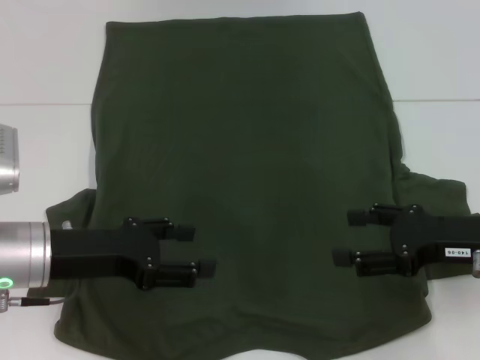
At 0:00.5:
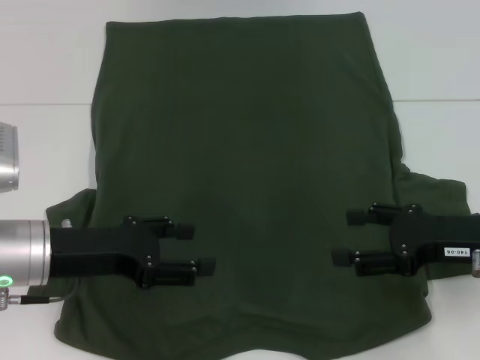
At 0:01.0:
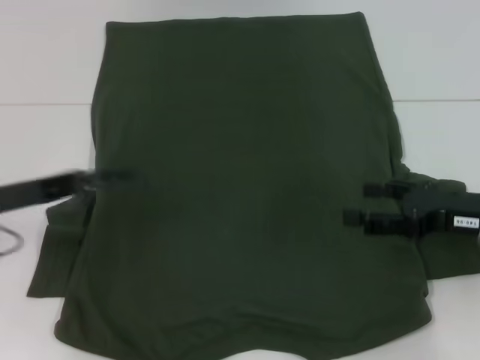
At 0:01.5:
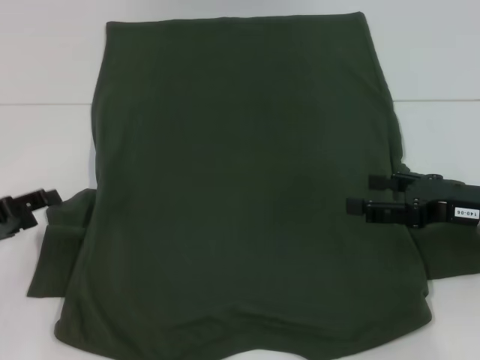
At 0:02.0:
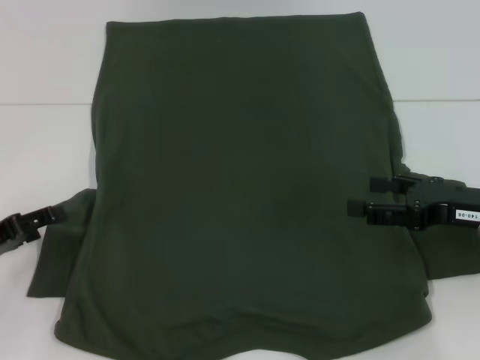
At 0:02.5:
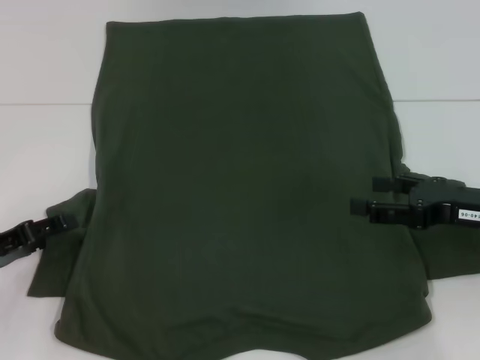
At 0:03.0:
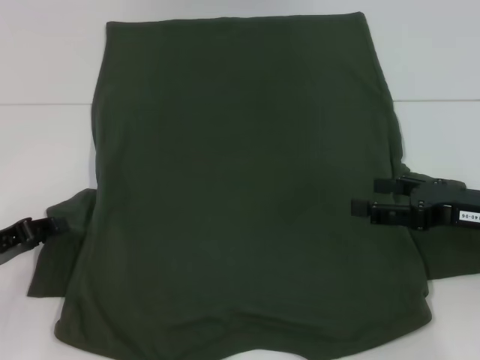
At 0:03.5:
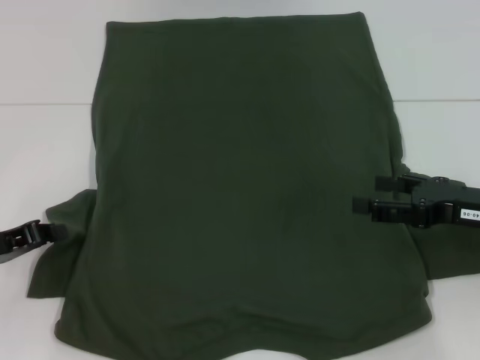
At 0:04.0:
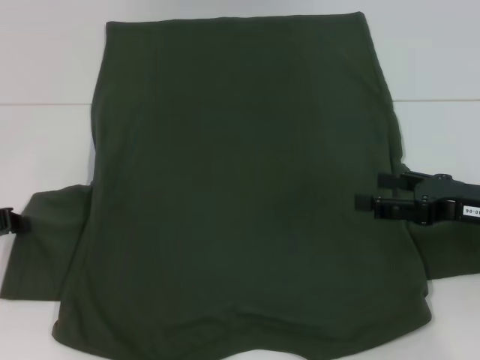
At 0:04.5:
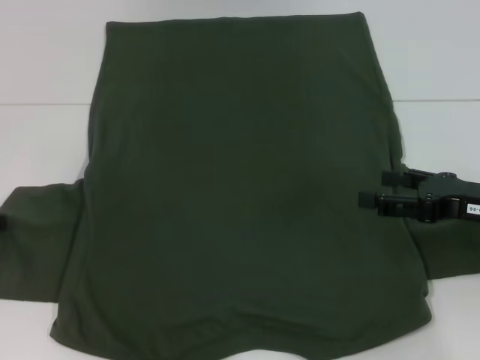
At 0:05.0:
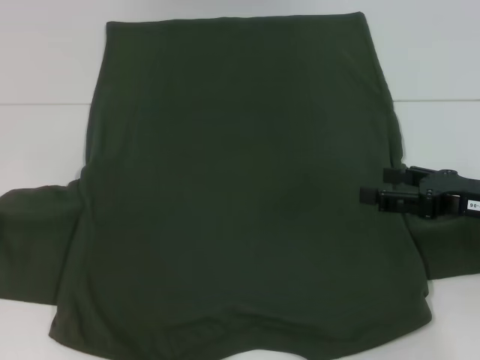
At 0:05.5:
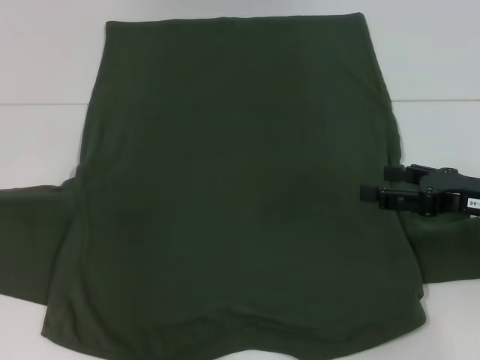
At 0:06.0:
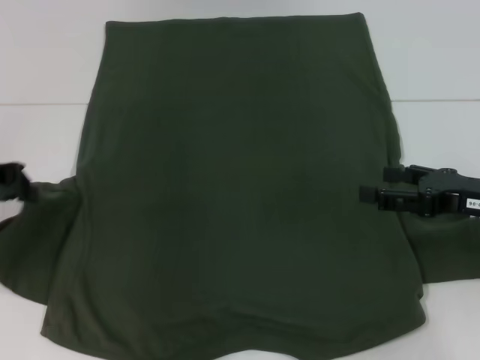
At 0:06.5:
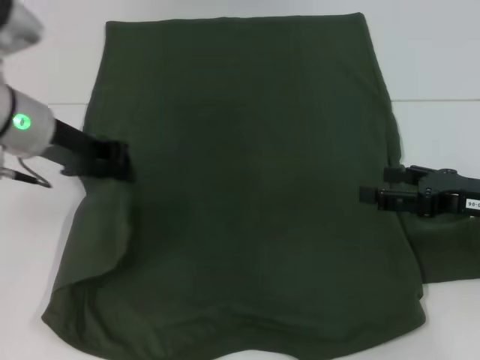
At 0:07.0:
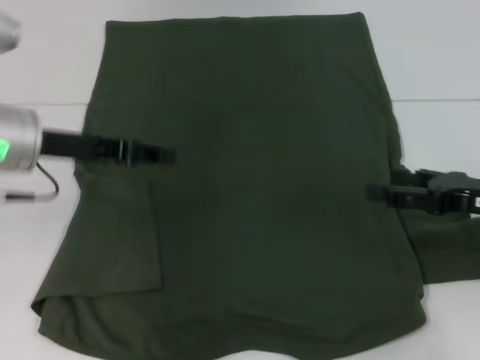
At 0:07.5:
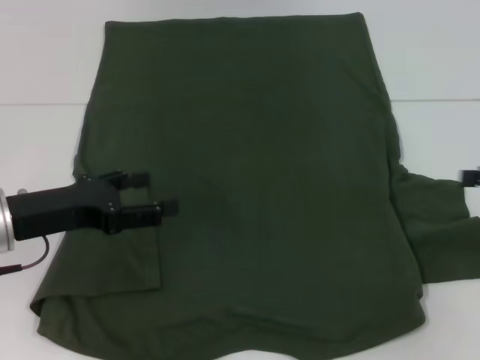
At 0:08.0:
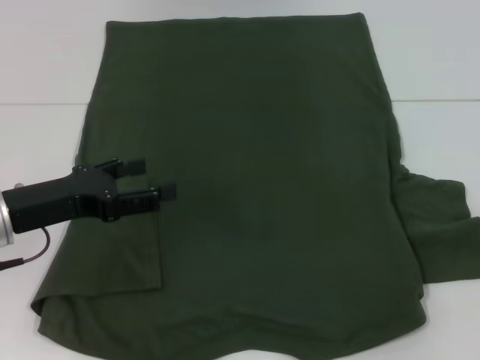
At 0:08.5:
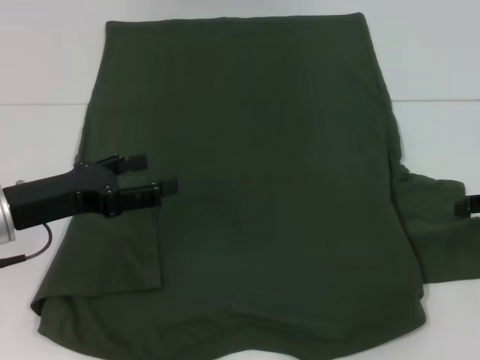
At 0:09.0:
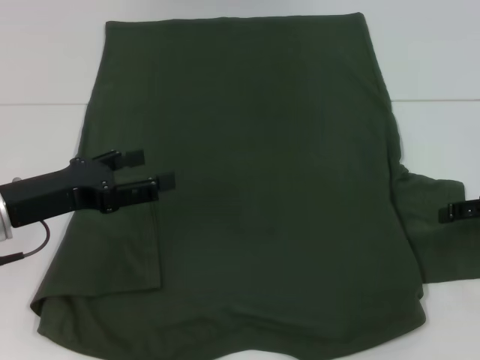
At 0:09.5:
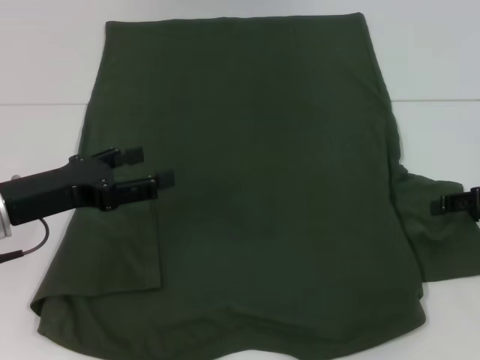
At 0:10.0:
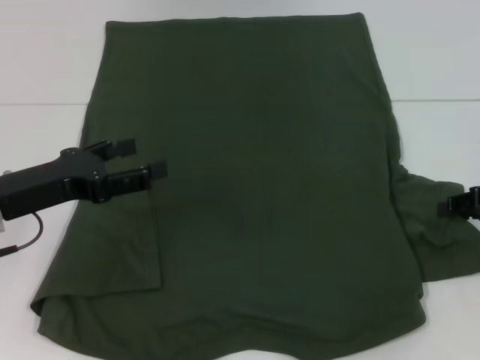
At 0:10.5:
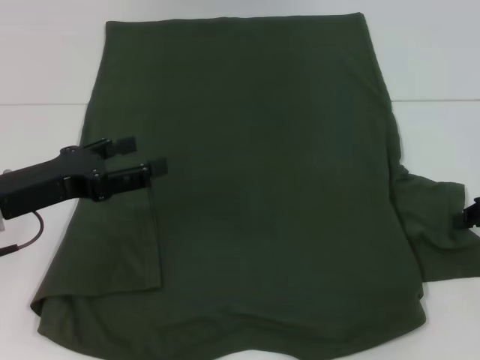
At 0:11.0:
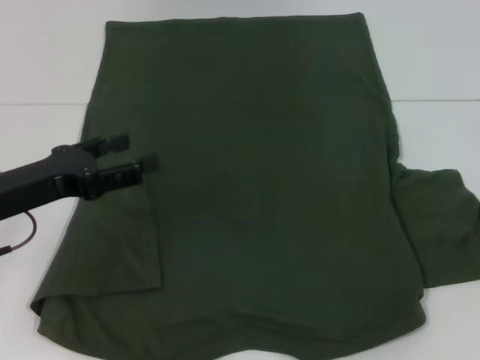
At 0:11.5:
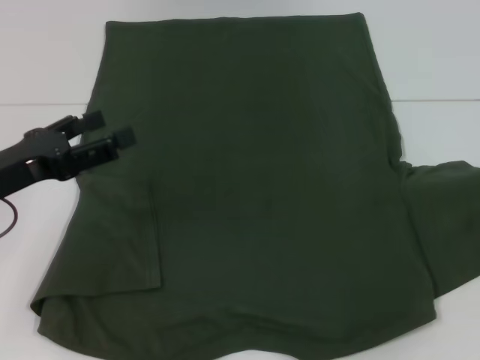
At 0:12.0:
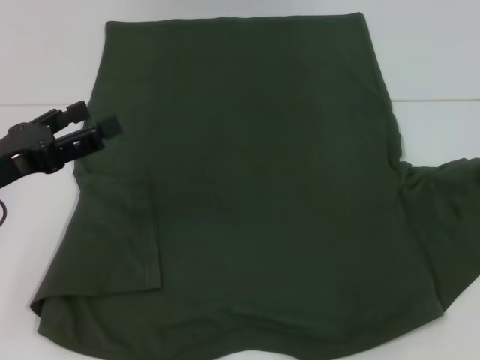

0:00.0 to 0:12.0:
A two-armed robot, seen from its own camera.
Step, 0:00.0 to 0:07.5: Fold the bottom left sleeve with your left hand.
0:00.0 to 0:02.0: The left gripper heads to the left, covering some 10 cm.
0:02.0 to 0:04.0: The left gripper closes its fingers.
0:04.0 to 0:06.0: The left gripper is displaced upward by some 10 cm.
0:06.0 to 0:08.0: The right gripper goes approximately 10 cm to the right. The left gripper travels downward, to the right and backward by roughly 10 cm, and opens up.
0:08.0 to 0:10.0: The right gripper shifts by about 5 cm, and closes up.
0:10.0 to 0:12.0: The right gripper closes.

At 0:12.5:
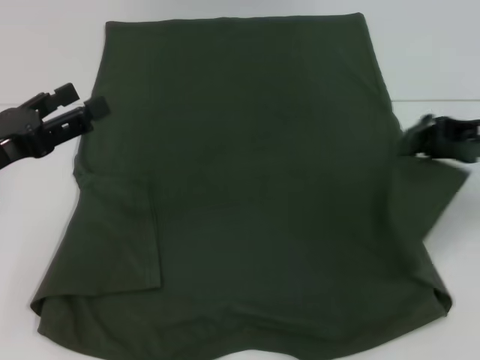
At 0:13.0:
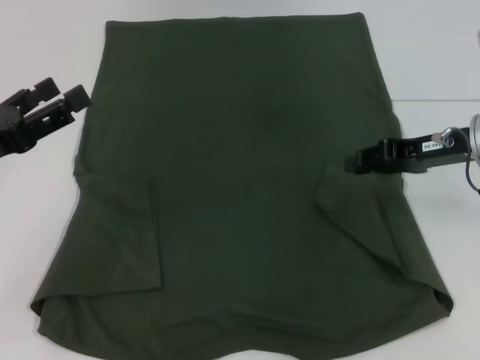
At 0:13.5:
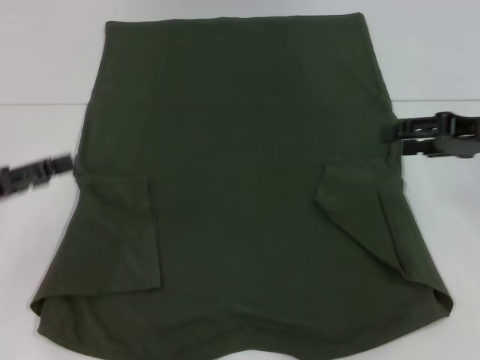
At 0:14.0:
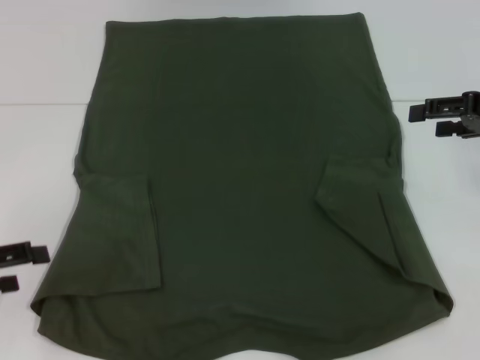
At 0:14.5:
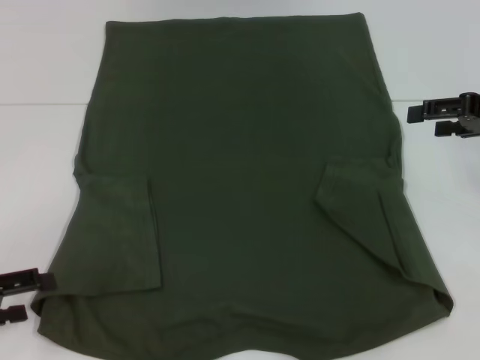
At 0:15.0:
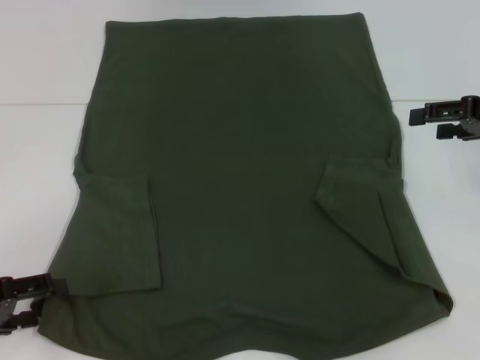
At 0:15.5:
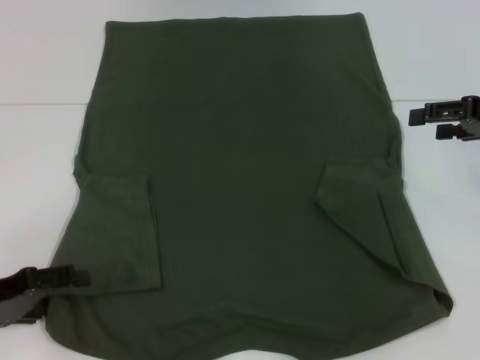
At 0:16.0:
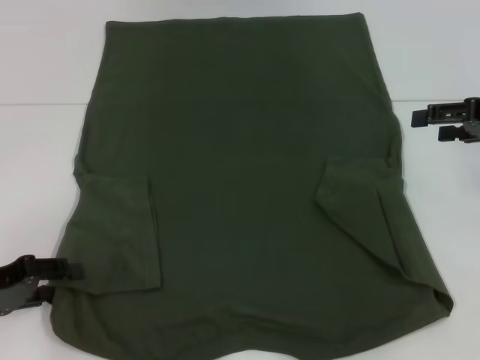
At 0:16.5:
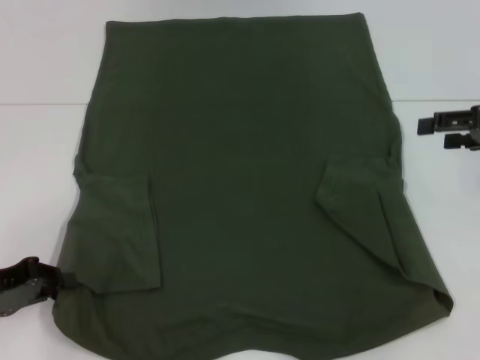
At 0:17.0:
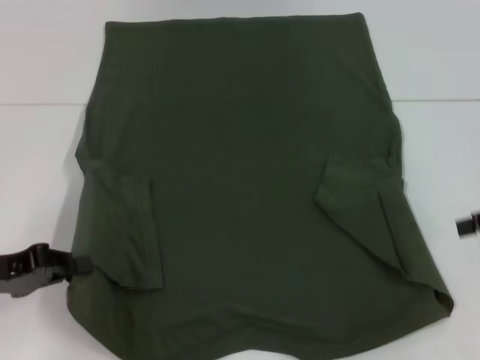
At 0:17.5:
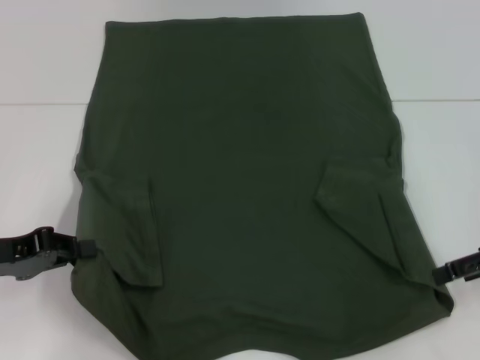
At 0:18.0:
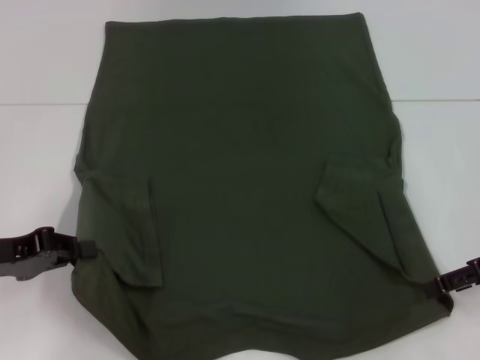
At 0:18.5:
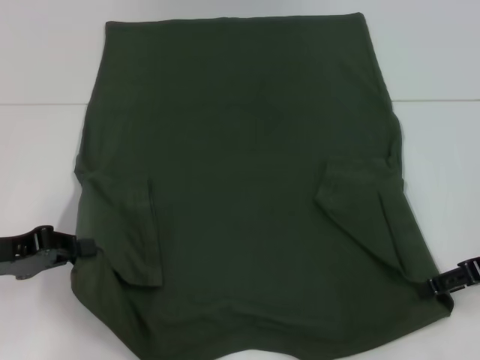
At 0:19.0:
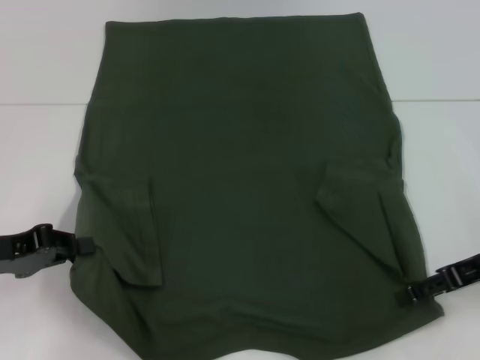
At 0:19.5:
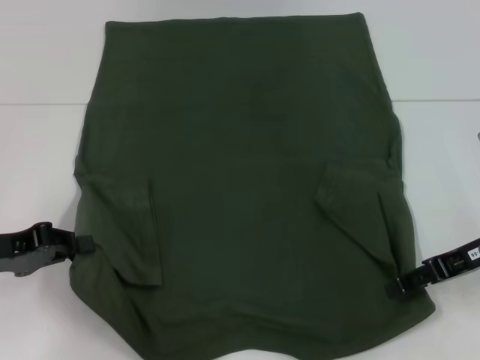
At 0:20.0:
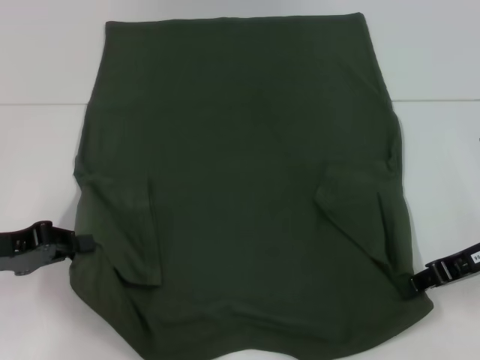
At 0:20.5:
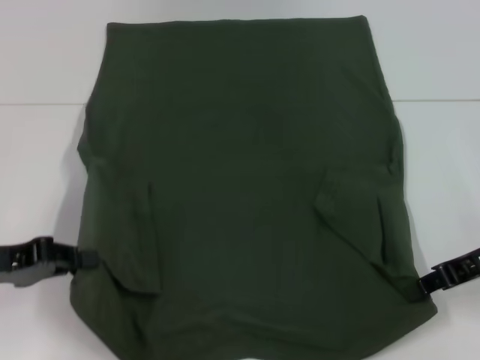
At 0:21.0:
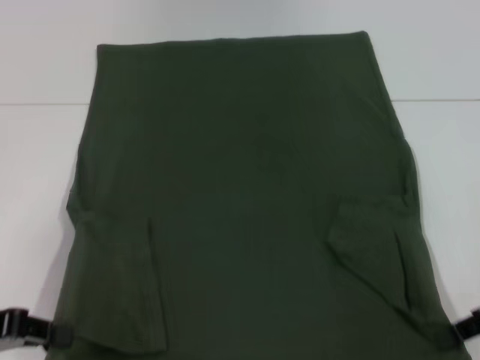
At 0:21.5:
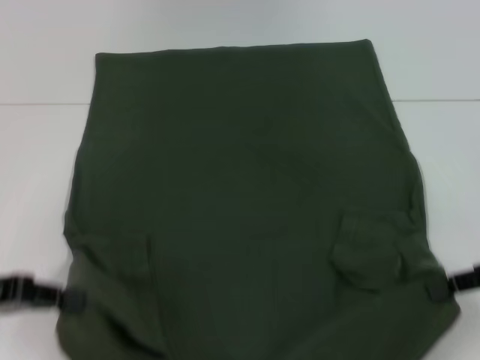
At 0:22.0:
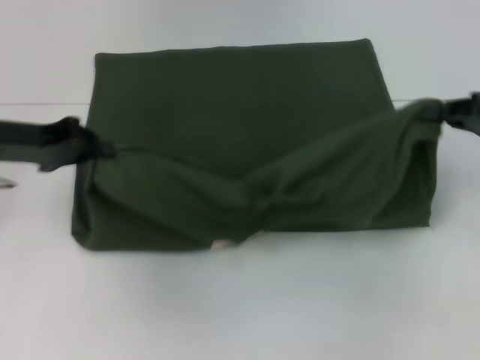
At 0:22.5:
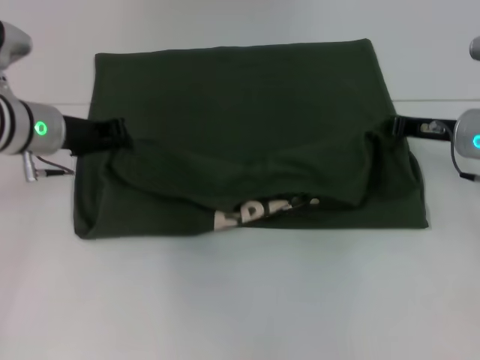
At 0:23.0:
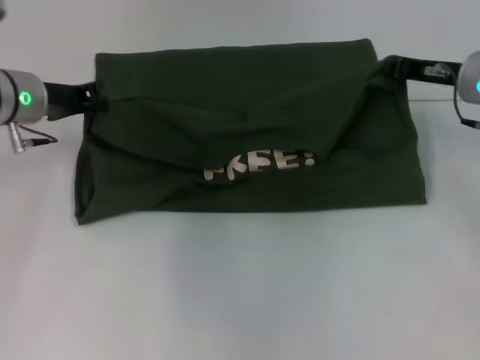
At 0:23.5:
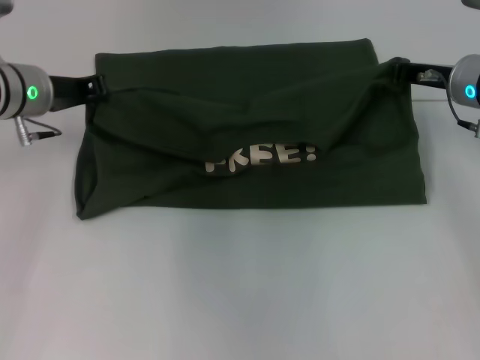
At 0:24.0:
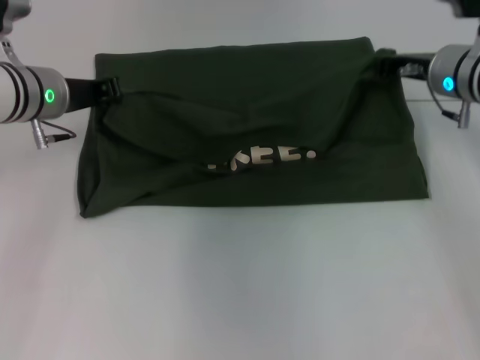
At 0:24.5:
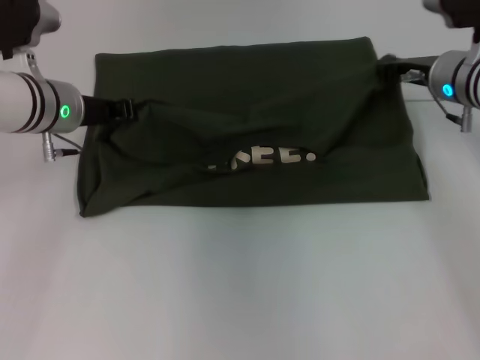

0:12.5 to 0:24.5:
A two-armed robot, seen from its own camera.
Step, 0:14.0 to 0:16.5: Grab the bottom left corner with your left hand.
Step, 0:17.0 to 0:20.5: Grab the bottom right corner with your right hand.
0:12.5 to 0:14.5: The left gripper heads to the left and backward, covering approximately 10 cm, while the right gripper opens its fingers.
0:14.5 to 0:16.5: The left gripper closes.
0:16.5 to 0:18.5: The right gripper travels downward and backward by approximately 10 cm.
0:18.5 to 0:20.5: The right gripper closes its fingers.
0:20.5 to 0:22.5: The right gripper travels forward by approximately 10 cm. The left gripper moves forward and to the right, some 15 cm.
0:22.5 to 0:24.5: The right gripper changes place by approximately 5 cm.

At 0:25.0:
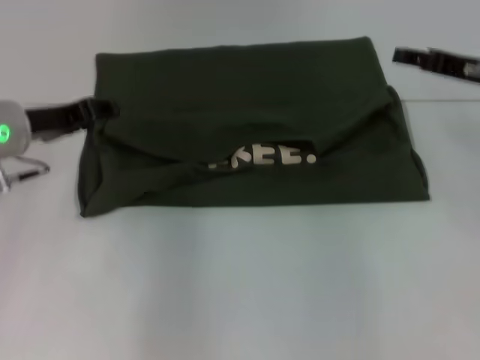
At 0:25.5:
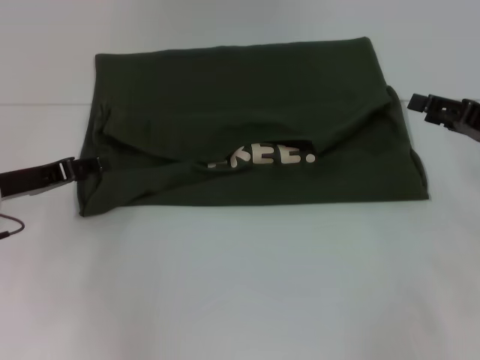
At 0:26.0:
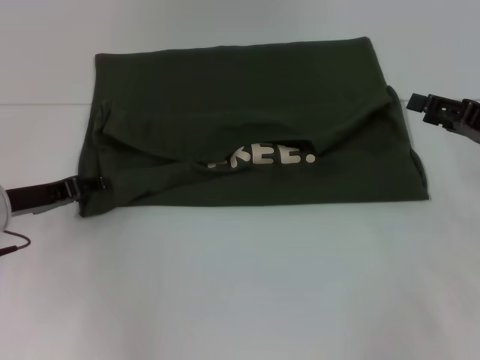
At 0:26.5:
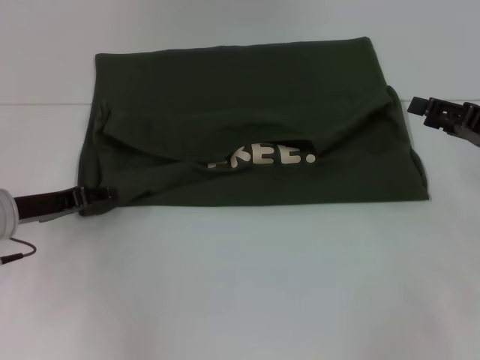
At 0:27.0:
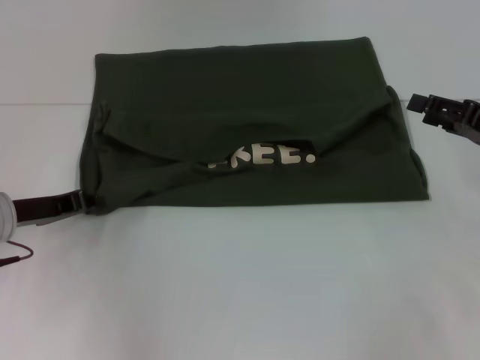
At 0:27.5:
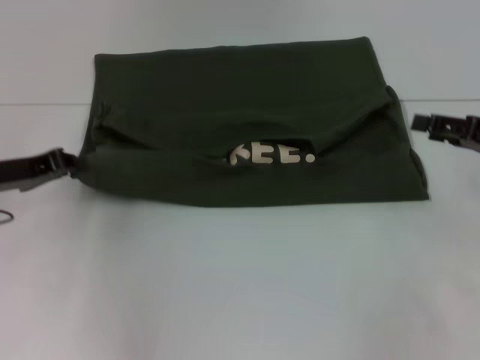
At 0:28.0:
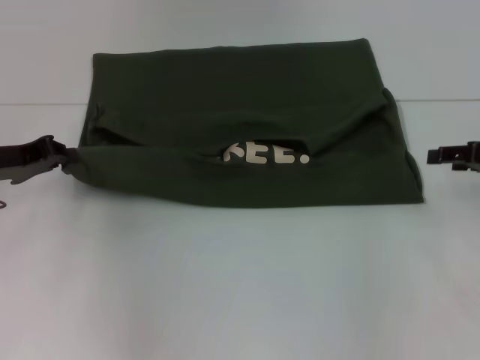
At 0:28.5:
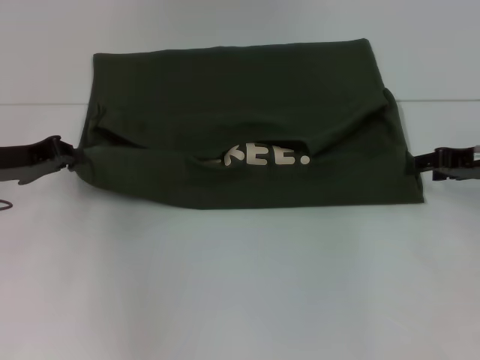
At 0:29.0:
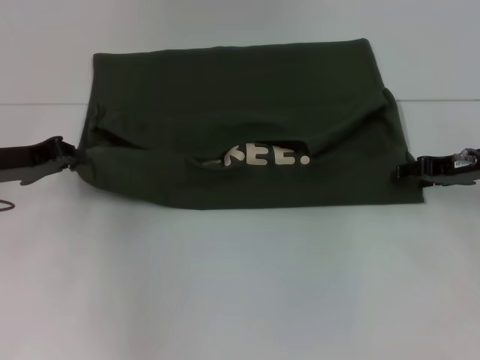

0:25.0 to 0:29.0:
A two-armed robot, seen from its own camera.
0:25.0 to 0:27.0: The right gripper travels backward by about 5 cm; the left gripper shifts approximately 10 cm downward.
0:27.0 to 0:29.0: The left gripper ends up about 5 cm from where it was. The right gripper goes some 5 cm forward.
